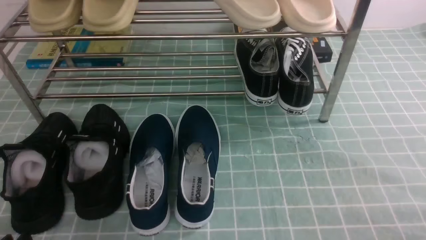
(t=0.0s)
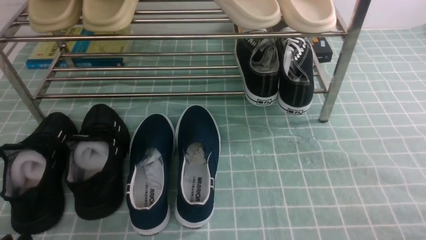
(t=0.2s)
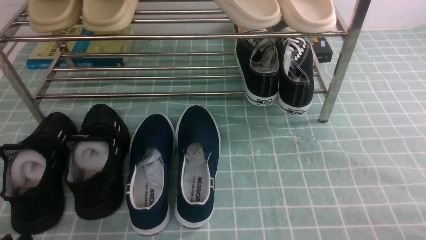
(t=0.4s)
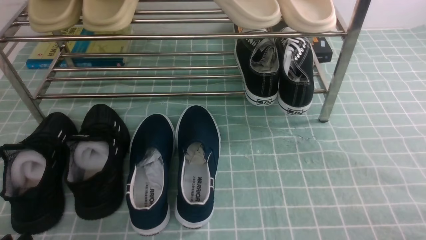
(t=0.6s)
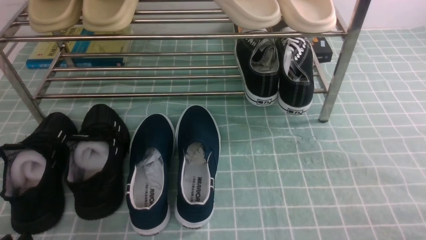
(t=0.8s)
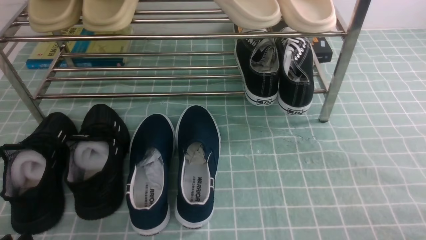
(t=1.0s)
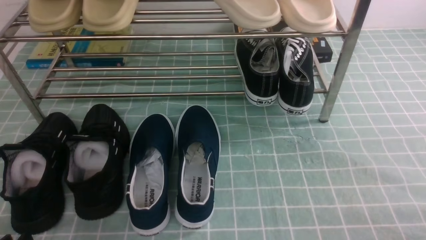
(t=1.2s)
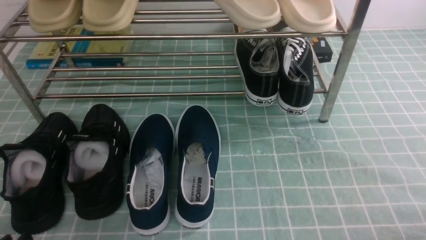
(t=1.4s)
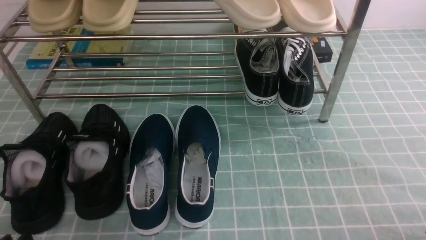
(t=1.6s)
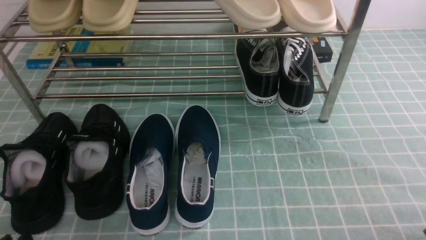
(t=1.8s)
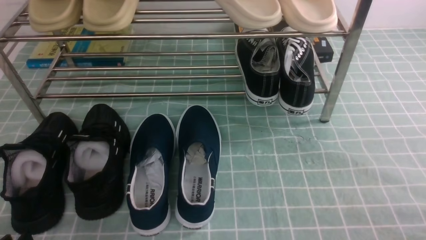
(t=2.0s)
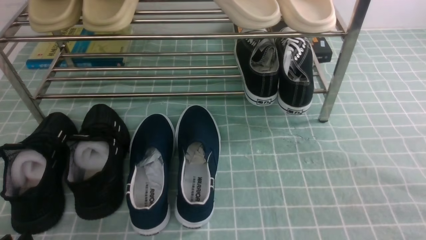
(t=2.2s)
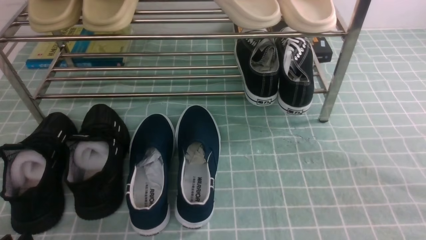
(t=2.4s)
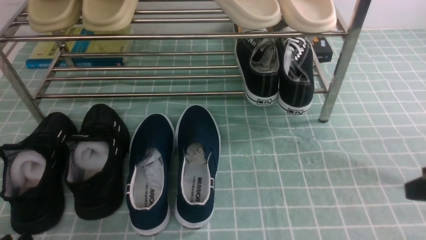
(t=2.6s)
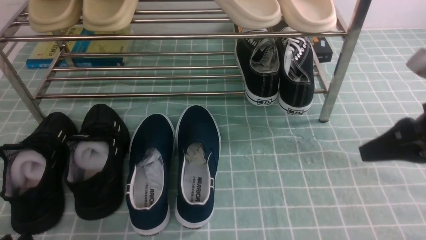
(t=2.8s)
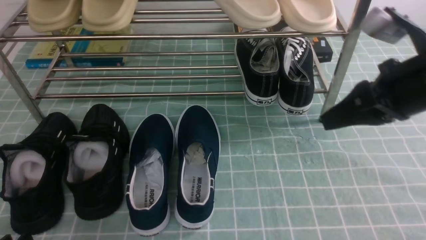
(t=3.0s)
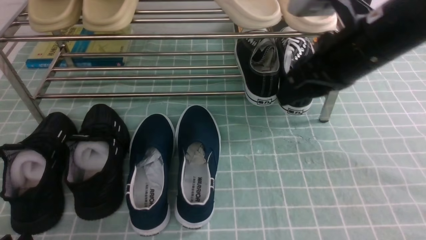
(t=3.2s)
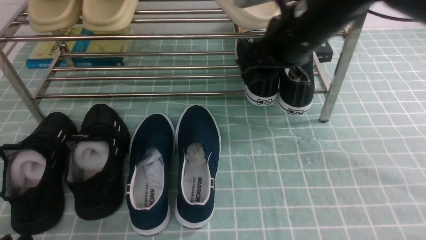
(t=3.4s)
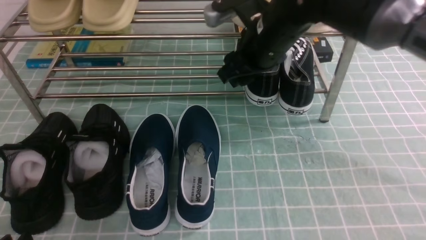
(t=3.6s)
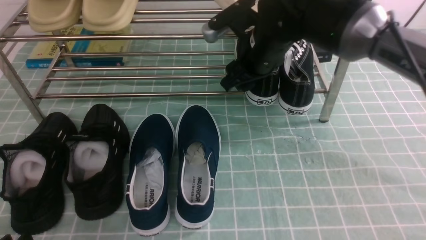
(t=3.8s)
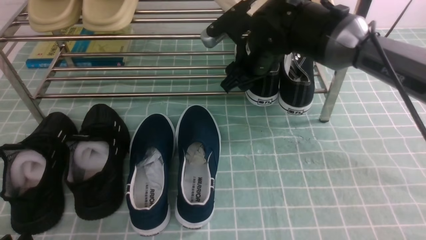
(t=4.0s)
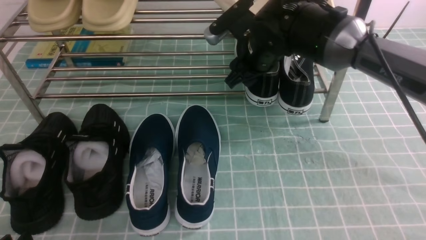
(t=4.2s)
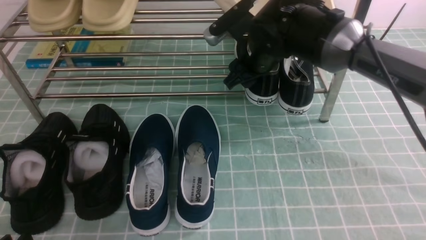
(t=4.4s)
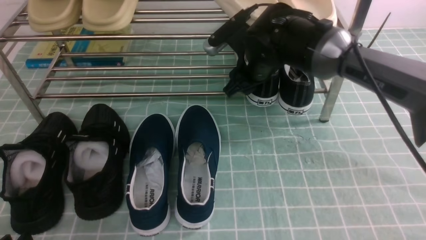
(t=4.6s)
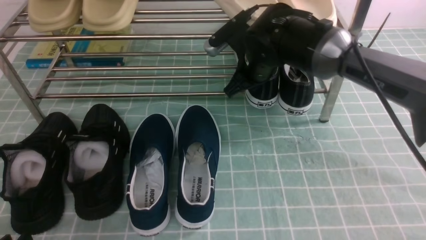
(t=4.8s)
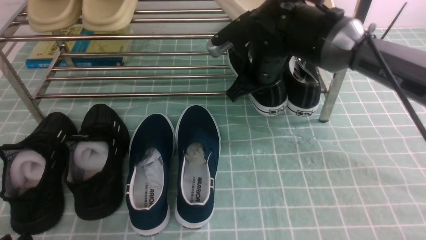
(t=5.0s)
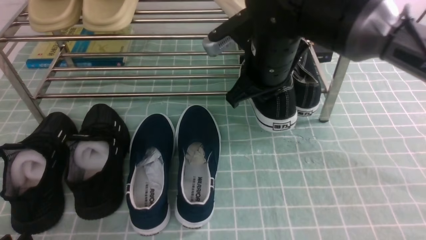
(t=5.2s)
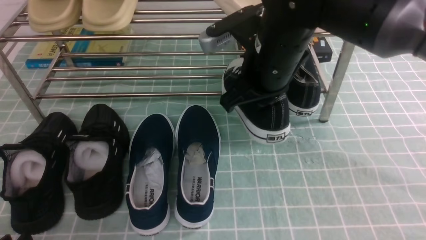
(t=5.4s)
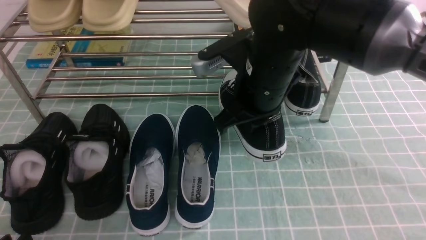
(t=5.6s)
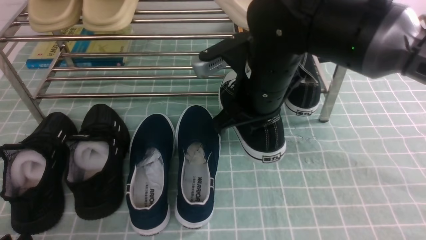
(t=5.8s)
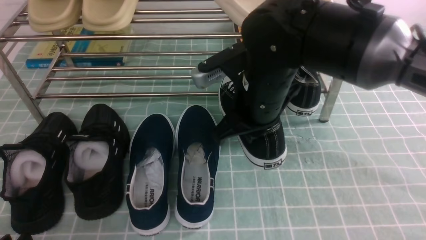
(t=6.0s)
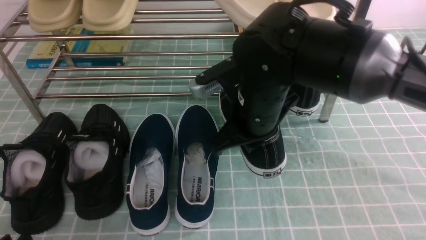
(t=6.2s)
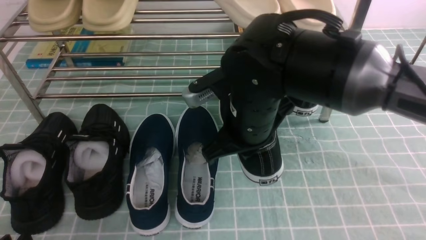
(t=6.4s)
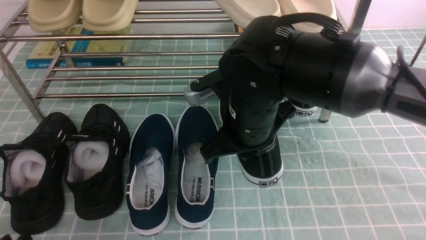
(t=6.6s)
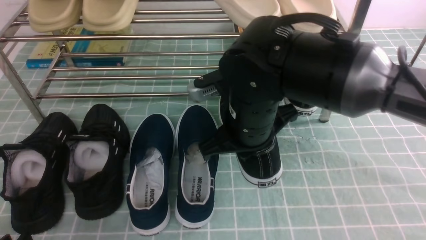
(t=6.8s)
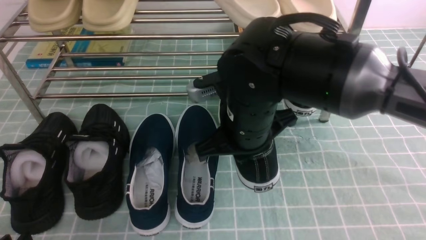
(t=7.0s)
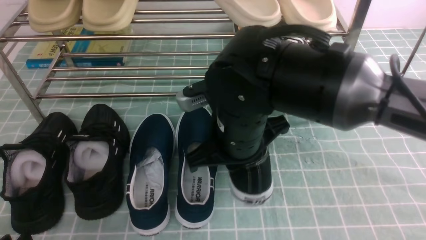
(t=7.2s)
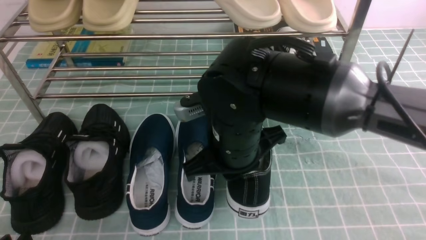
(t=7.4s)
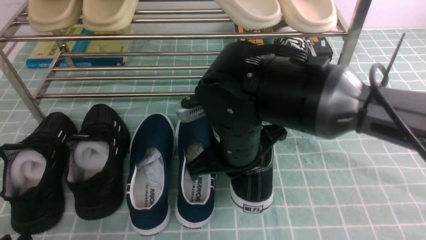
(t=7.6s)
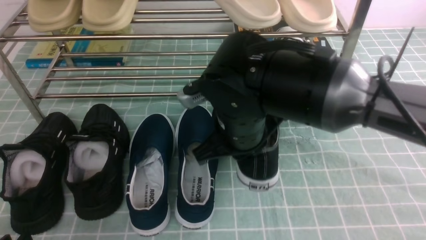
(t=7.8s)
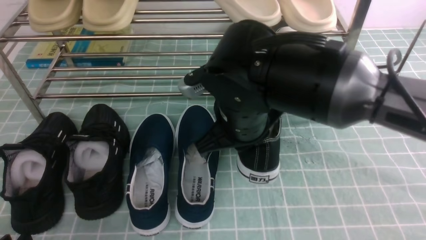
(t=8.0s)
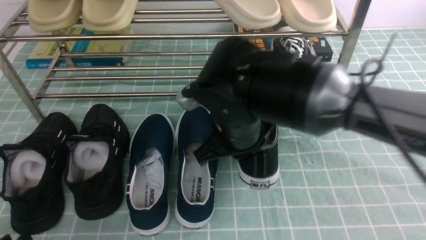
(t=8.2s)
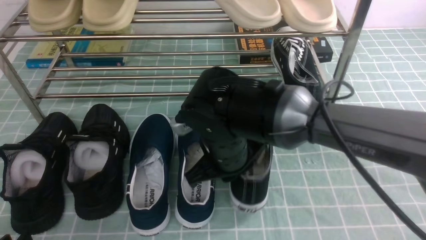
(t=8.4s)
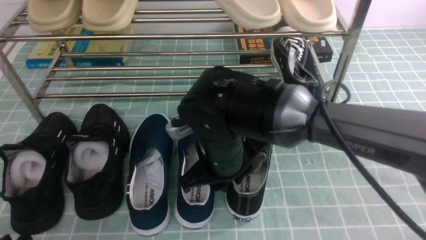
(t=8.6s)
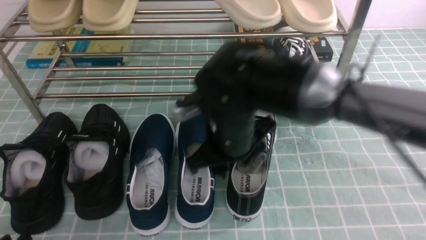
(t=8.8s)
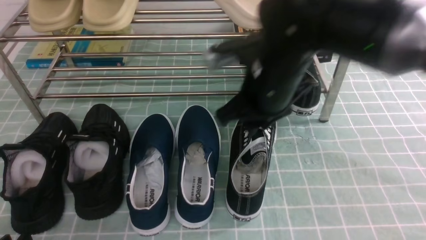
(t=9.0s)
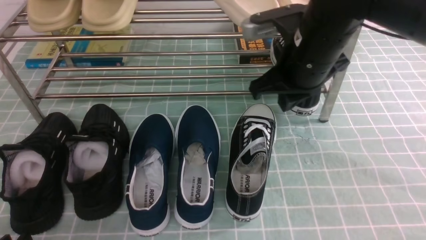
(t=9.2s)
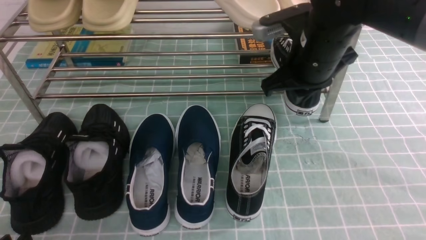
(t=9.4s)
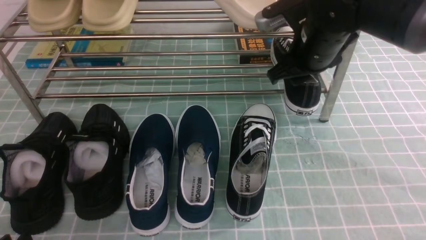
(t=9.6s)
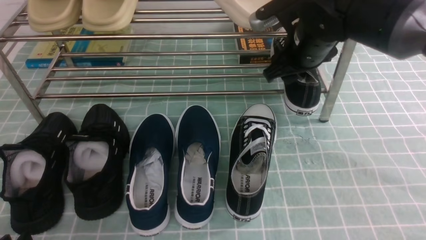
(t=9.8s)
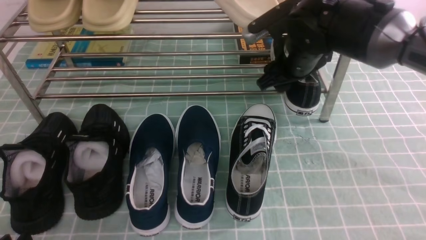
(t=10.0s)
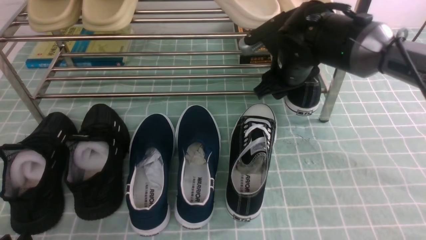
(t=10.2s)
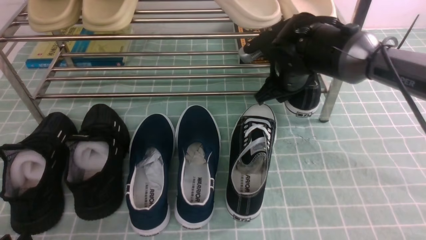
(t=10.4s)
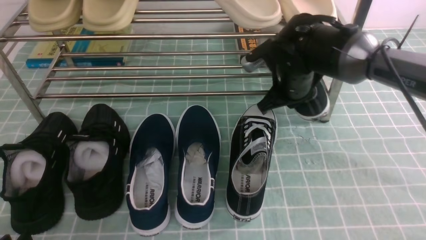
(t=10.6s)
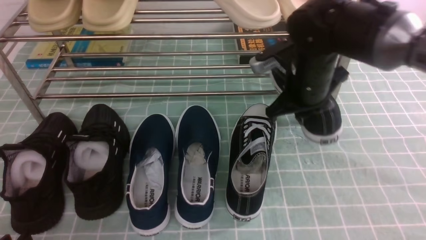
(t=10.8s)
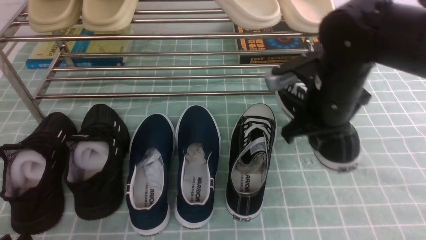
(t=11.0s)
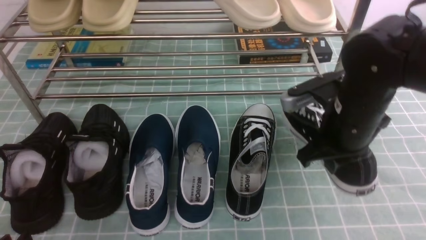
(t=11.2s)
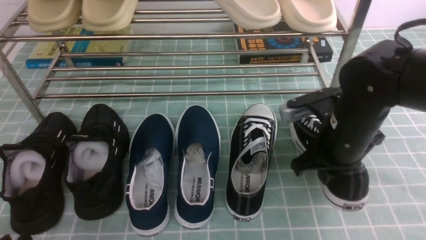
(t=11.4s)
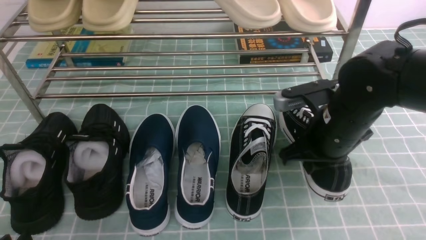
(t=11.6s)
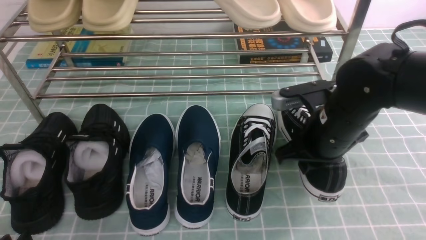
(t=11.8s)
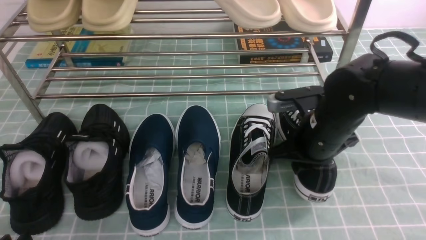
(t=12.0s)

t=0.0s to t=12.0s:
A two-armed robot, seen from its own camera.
Step, t=0.0s to t=4.2s: use the right arm to clamp a shoe on the right side of the shoe rack.
Step, t=4.4s to t=9.0s: use the right arm to take out the clamped shoe from the shoe rack and put it down.
Step, t=9.2s to t=10.6s: use the right arm to clamp a shoe on the right side of the shoe rack.
t=1.6s to t=3.0s: The right gripper travels forward, upward and to the left by approximately 30 cm.
t=3.0s to t=4.4s: The right gripper moves forward, to the left and downward, some 25 cm, and opens its fingers.
t=4.4s to t=6.0s: The right gripper moves backward, approximately 15 cm, and closes up.
t=6.0s to t=7.6s: The right gripper shifts by some 5 cm.
t=7.6s to t=9.0s: The right gripper shifts some 5 cm to the right.
t=9.0s to t=10.4s: The right gripper is displaced forward, downward and to the right by some 15 cm, and opens, then closes again.
t=10.4s to t=12.0s: The right gripper heads backward, covering approximately 10 cm.

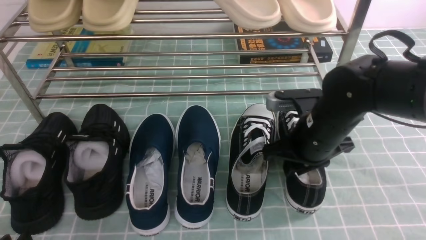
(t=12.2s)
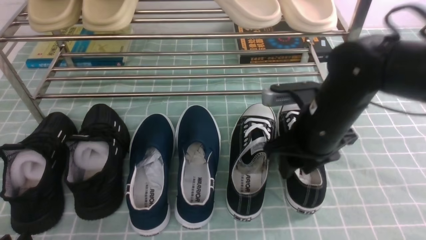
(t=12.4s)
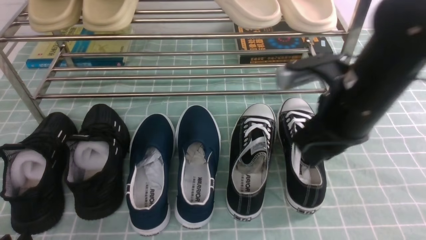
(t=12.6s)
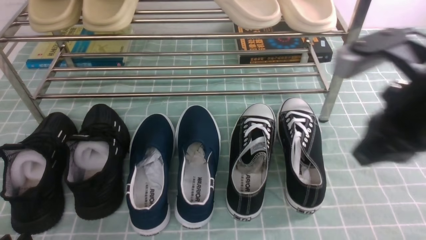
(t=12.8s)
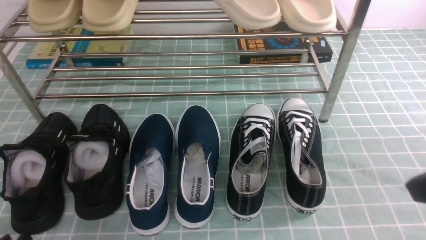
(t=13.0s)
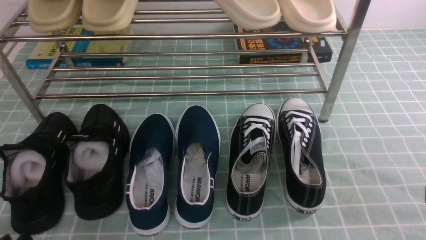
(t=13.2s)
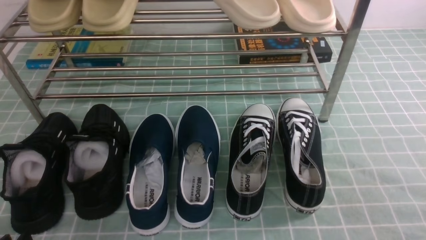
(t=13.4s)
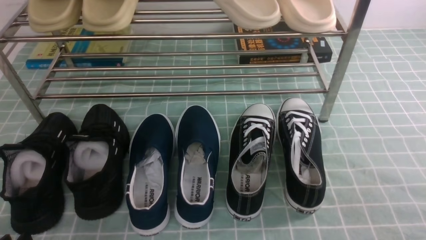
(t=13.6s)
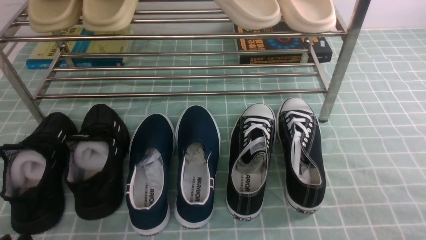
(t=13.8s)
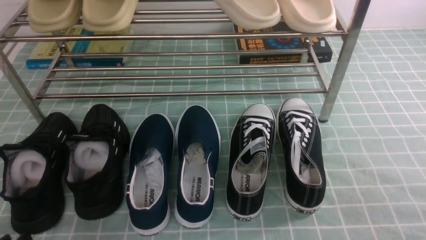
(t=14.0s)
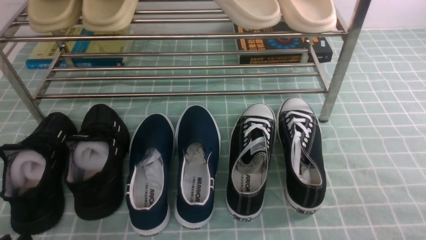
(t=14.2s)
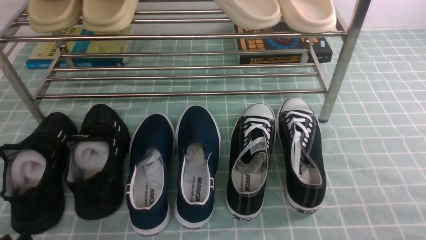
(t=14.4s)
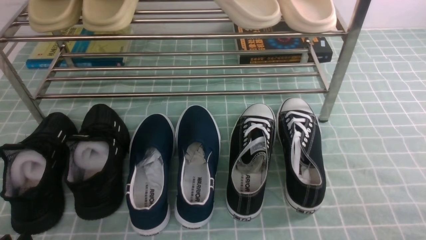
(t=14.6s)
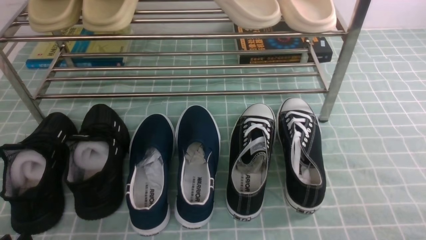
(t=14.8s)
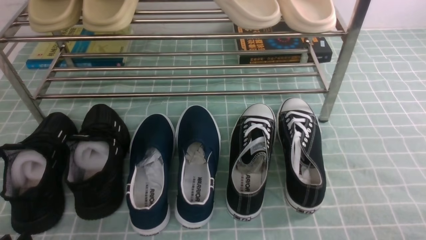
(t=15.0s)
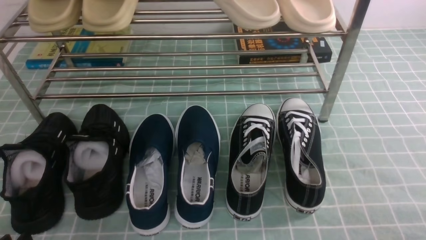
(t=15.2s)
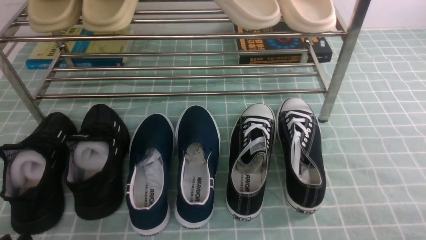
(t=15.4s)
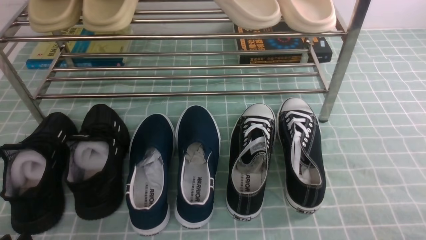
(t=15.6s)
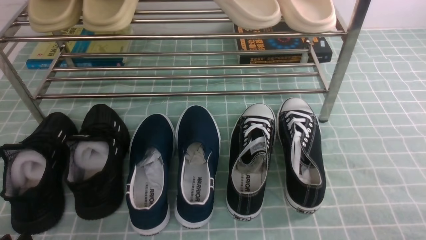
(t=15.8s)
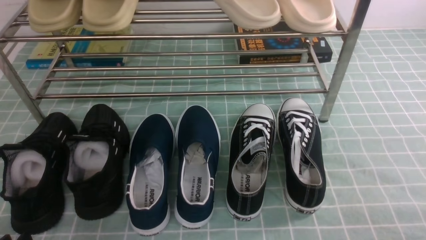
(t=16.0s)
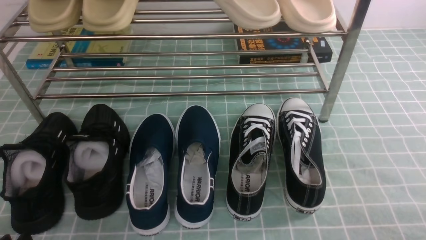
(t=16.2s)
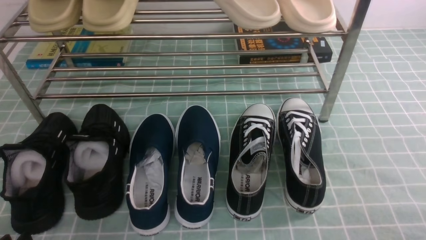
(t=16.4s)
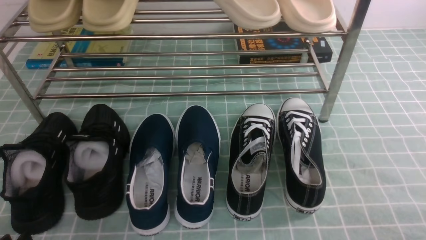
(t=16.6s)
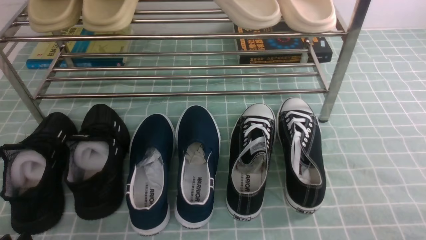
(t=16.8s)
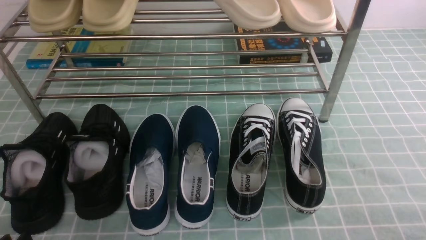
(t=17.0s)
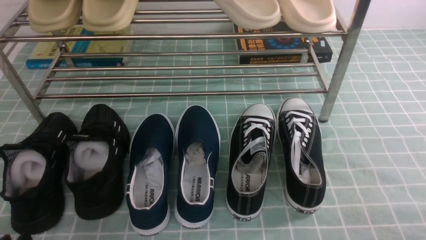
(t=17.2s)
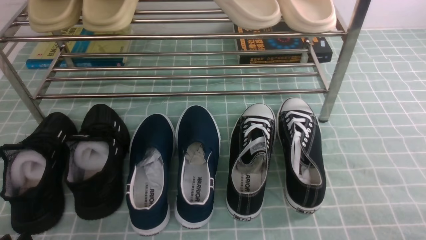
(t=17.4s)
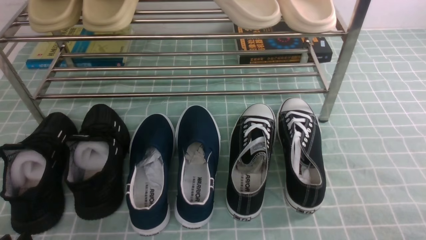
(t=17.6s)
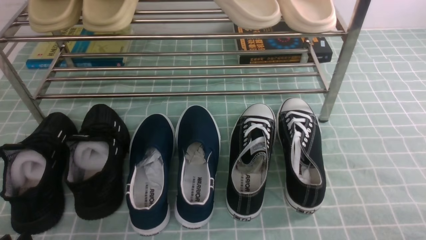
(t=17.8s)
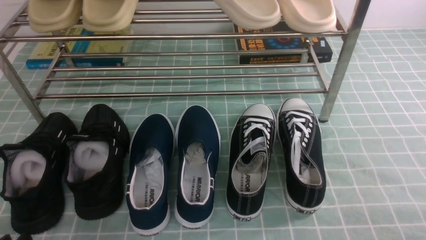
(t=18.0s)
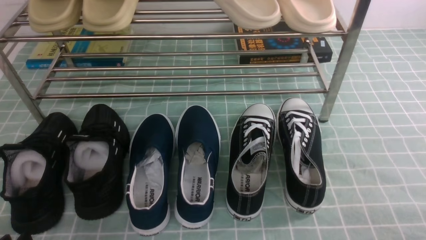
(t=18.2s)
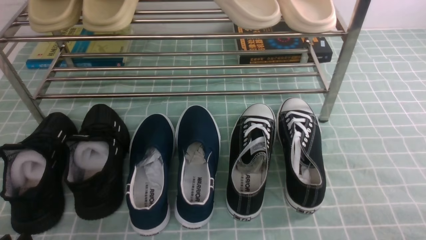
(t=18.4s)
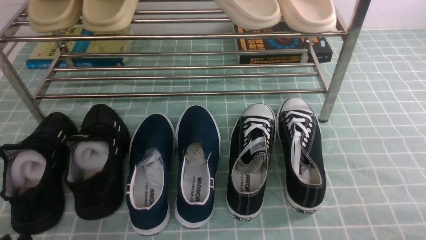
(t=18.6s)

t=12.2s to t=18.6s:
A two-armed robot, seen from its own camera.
t=12.2s to t=13.8s: The right gripper is displaced backward and to the right by about 30 cm, and closes up.
t=15.4s to t=18.6s: Neither gripper changes place.
